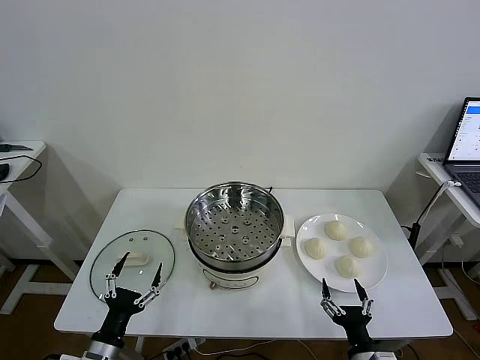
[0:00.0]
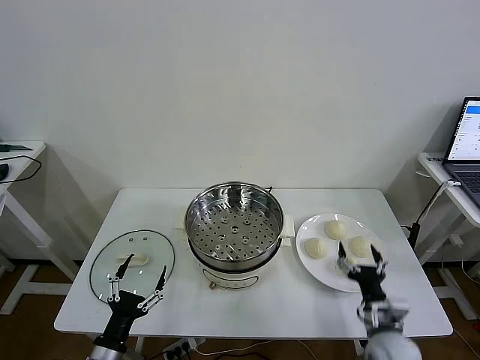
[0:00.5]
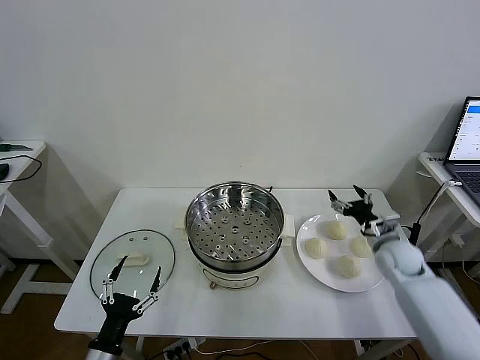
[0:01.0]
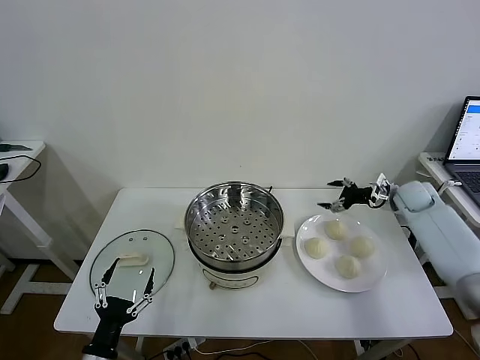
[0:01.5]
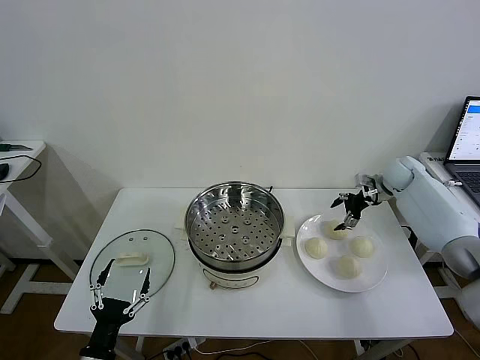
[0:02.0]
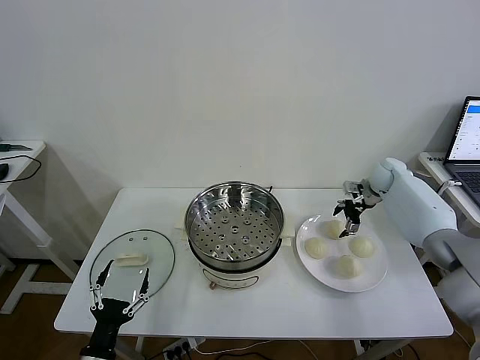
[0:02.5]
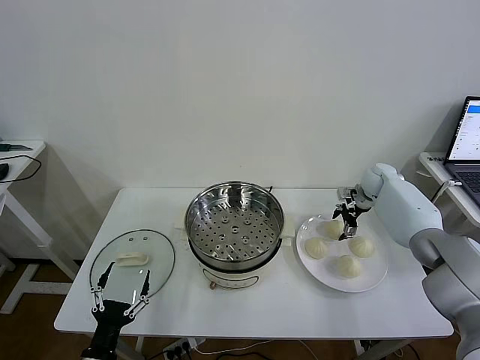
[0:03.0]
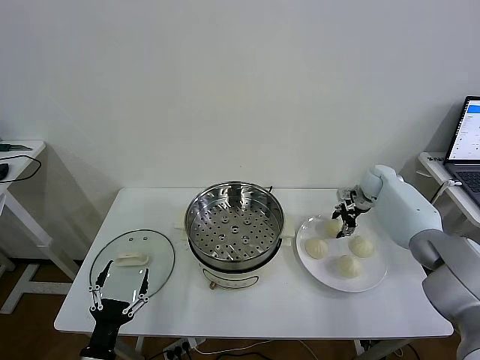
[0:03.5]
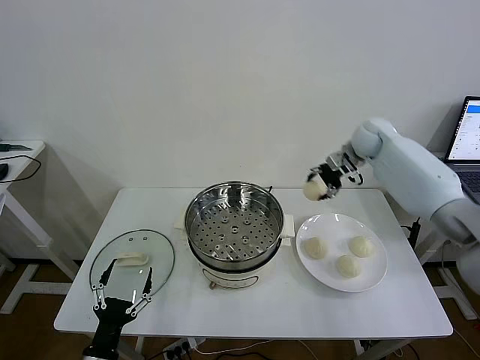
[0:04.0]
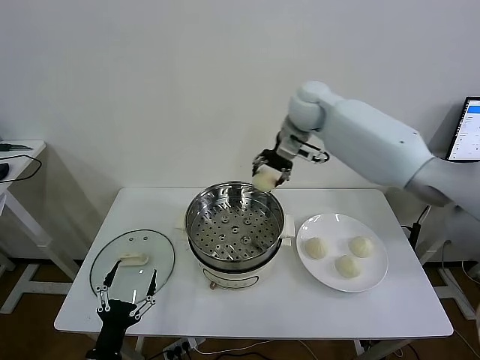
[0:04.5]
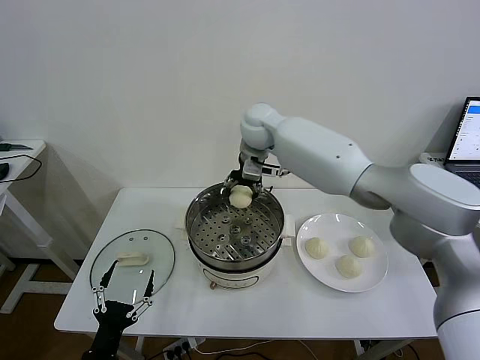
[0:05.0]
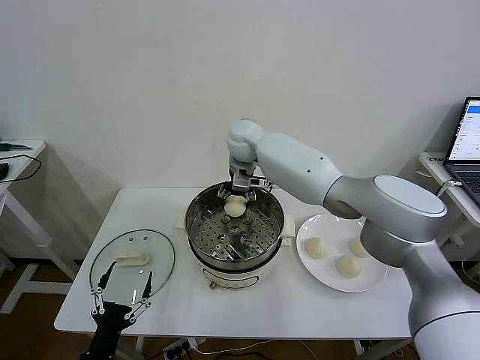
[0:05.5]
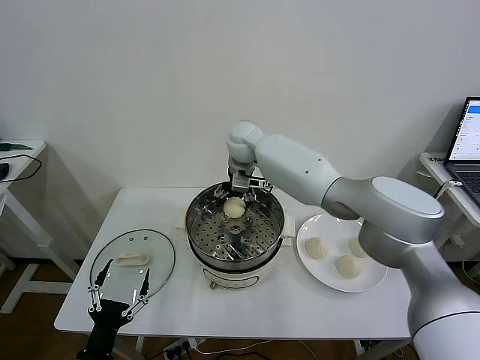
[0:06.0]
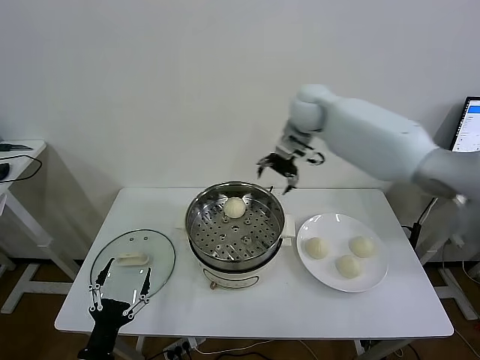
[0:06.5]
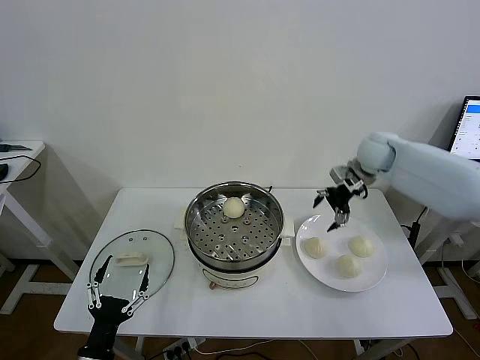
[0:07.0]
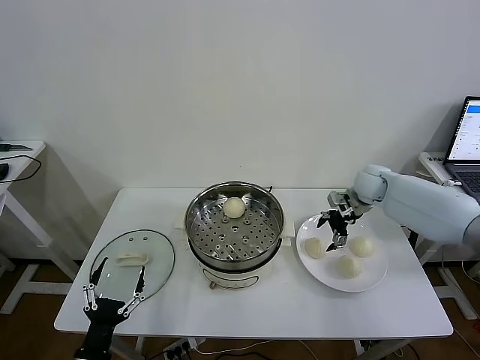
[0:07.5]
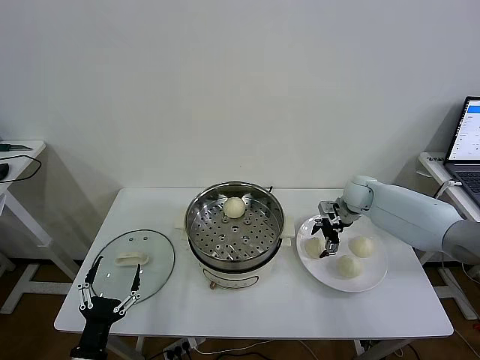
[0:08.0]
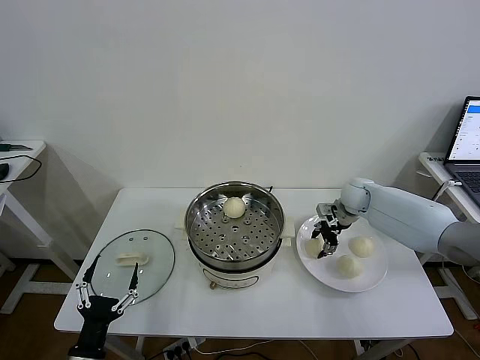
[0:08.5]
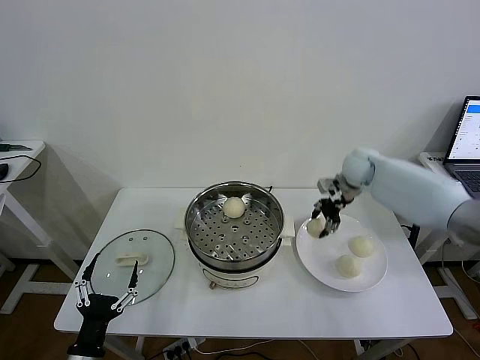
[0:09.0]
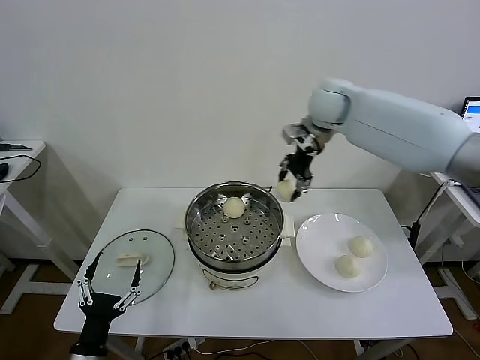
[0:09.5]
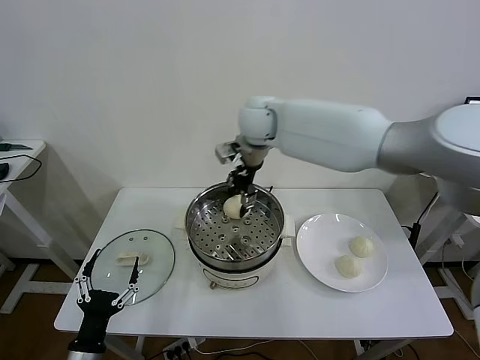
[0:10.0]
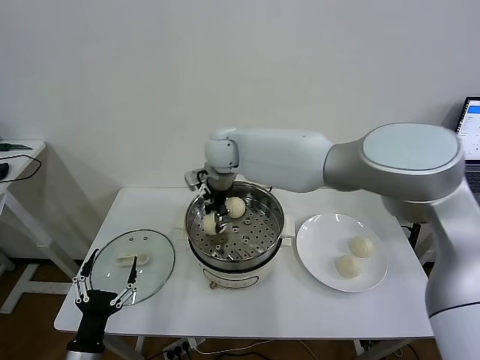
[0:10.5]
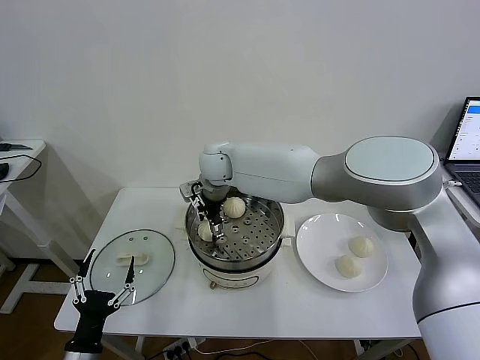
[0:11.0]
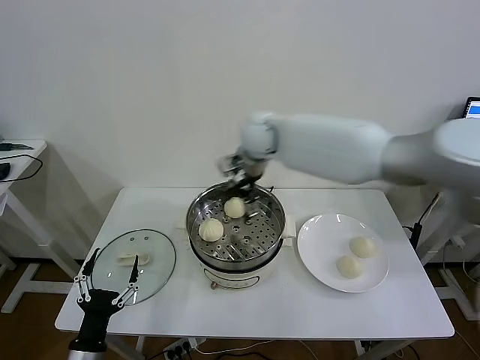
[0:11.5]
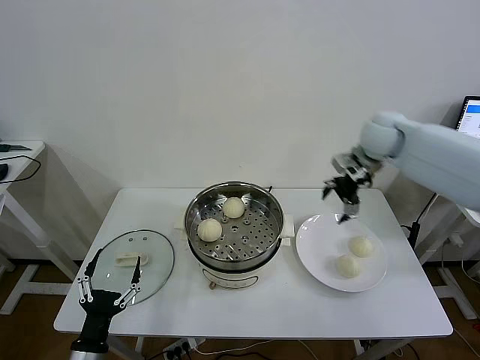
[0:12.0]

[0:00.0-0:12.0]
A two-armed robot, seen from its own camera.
Task of the whole recording: take steamed baozi put them in steamer then cover it.
Step, 0:00.0 to 0:03.0: Grasp the baozi in the plate with right gripper.
Step, 0:03.5 to 0:05.5: Place the baozi on the steamer with right gripper.
Step, 0:06.0 to 0:08.0: Grasp the baozi in the plate with right gripper.
Step, 0:08.5 to 0:10.5: Place the baozi on the steamer with right gripper.
0:02.0 to 0:04.0: The right gripper goes roughly 20 cm to the left and upward, and closes its fingers.
0:04.0 to 0:06.0: The right gripper travels to the left by some 25 cm, and opens up.
0:06.0 to 0:08.0: The right gripper moves to the right and downward, some 35 cm.
0:08.0 to 0:10.0: The right gripper is displaced to the left and upward by roughly 35 cm, and closes.
0:10.0 to 0:12.0: The right gripper is displaced to the right by about 30 cm, and opens its fingers.

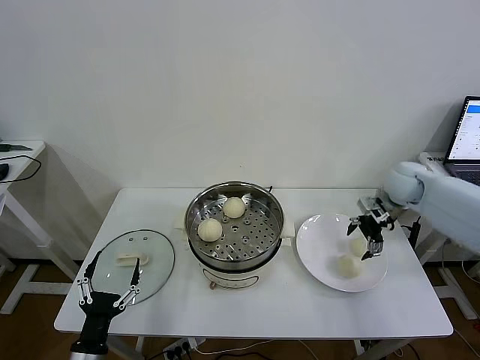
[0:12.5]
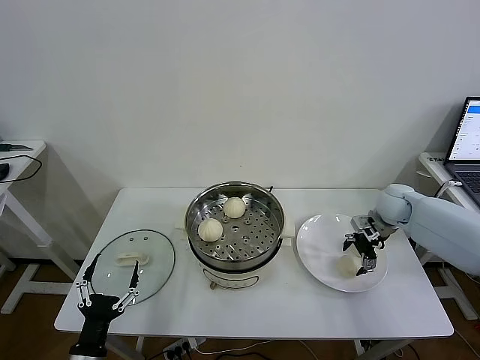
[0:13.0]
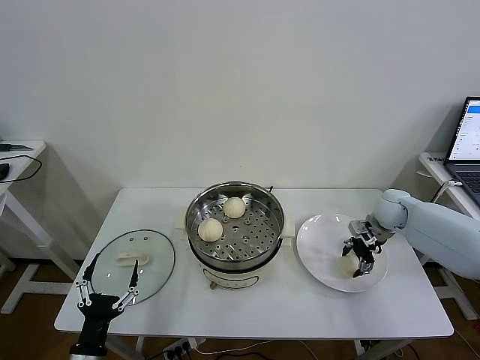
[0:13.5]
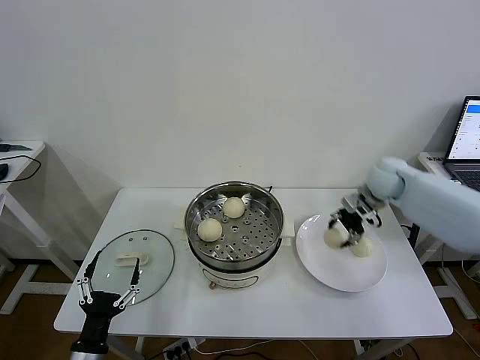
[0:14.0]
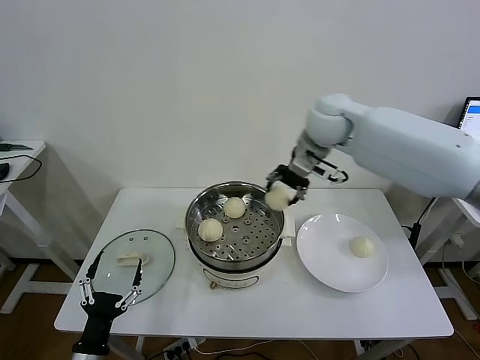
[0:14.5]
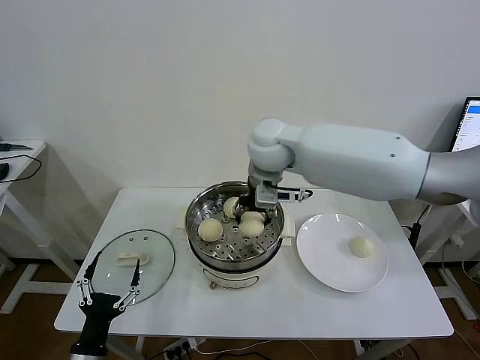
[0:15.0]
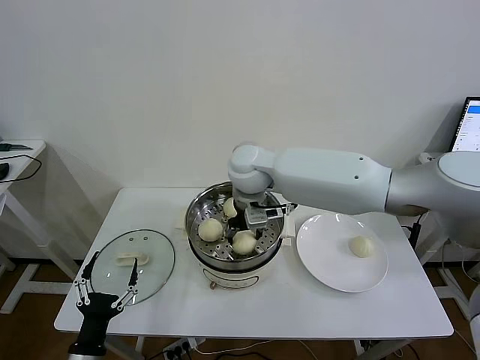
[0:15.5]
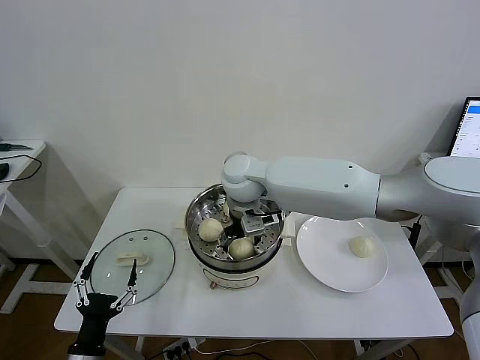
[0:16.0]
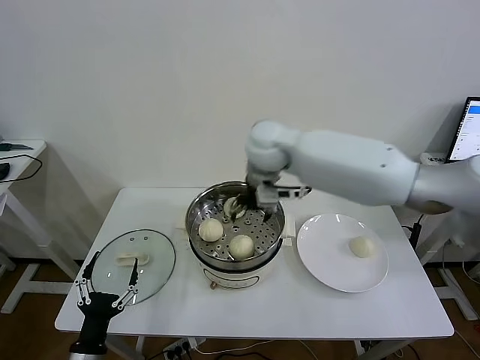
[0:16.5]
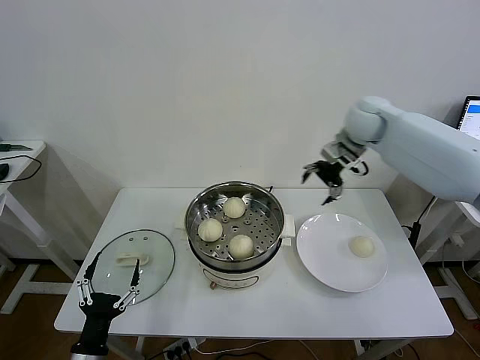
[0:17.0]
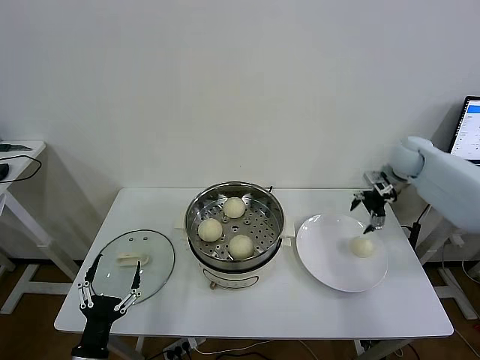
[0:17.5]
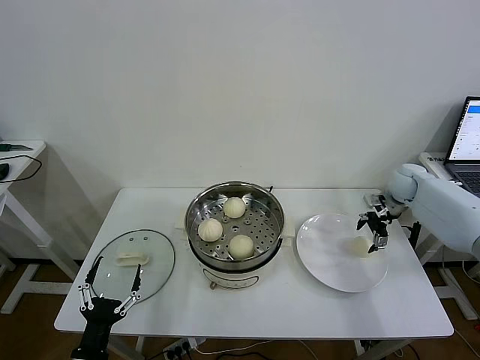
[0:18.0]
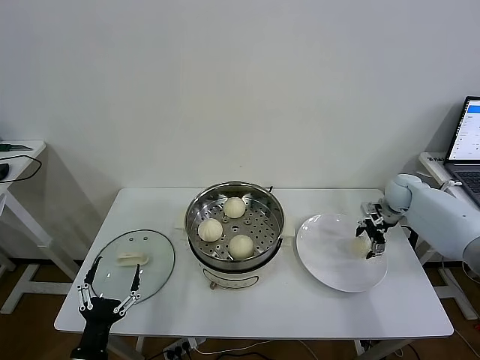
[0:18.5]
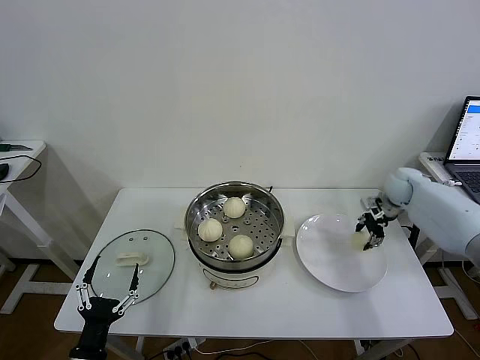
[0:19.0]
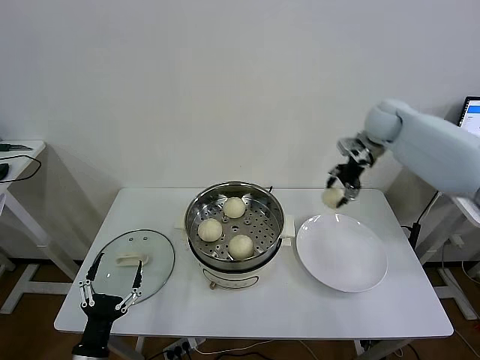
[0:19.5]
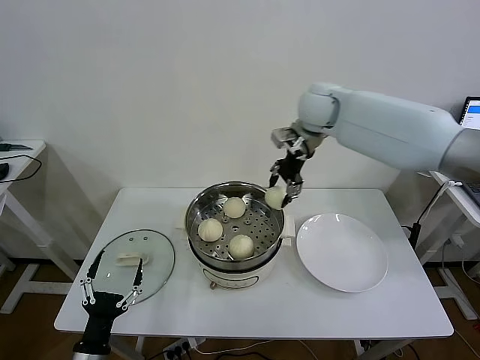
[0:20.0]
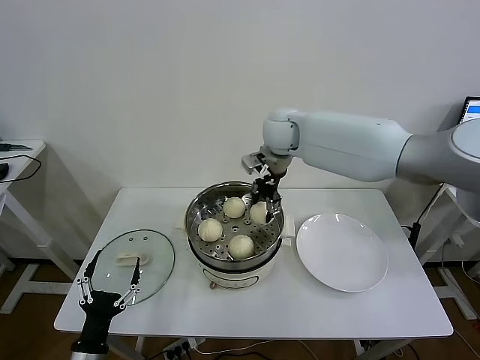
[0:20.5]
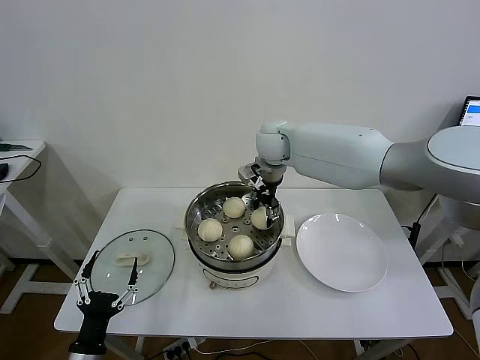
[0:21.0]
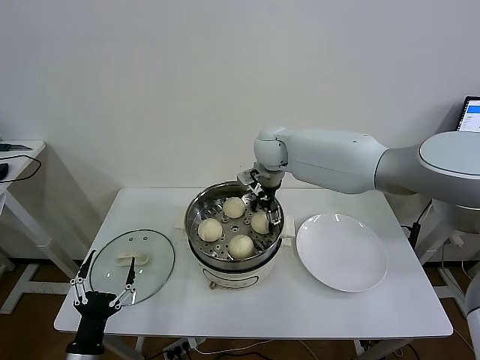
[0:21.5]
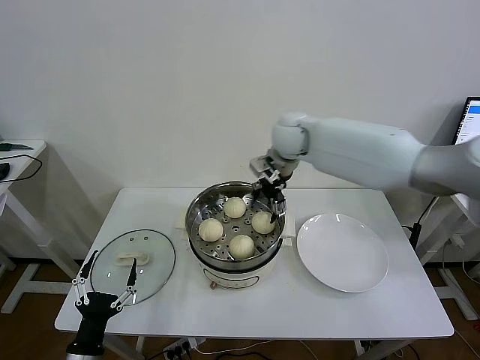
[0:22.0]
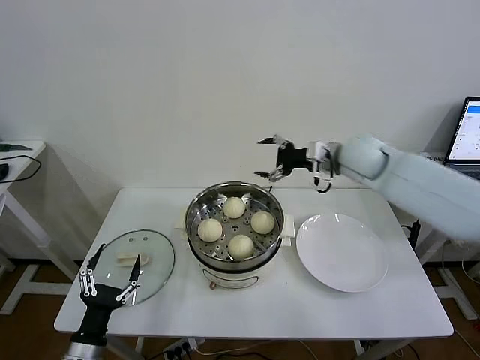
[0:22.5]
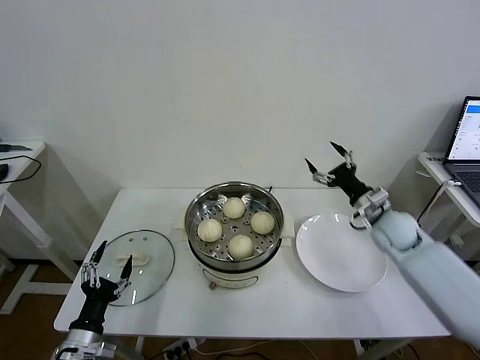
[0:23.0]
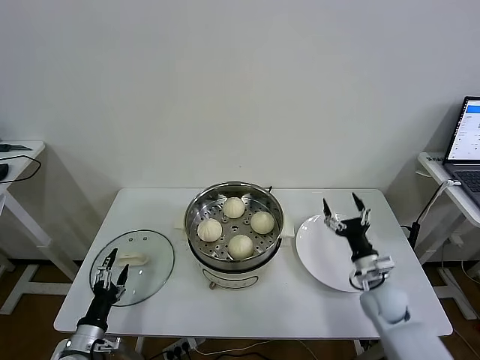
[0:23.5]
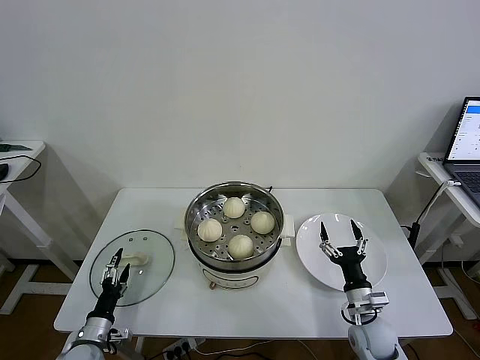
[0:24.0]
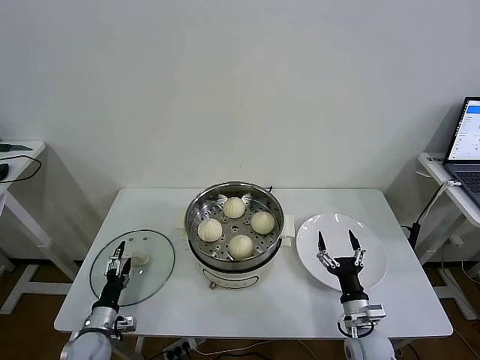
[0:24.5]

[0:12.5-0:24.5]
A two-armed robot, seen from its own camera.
Task of the whole recording: take steamed baozi put them in steamer then cover it.
Step, 0:14.0 to 0:16.0: Place the baozi on the steamer with right gripper.
Step, 0:16.5 to 0:18.5: Grasp the baozi in the plate with right gripper.
Step, 0:19.0 to 0:21.5: Place the baozi on the steamer with right gripper.
0:12.5 to 0:14.5: The right gripper shifts about 30 cm to the left and upward, and closes.
0:14.5 to 0:16.5: The right gripper shifts about 10 cm to the left, and opens.
0:16.5 to 0:18.5: The right gripper shifts approximately 40 cm to the right and downward.
0:18.5 to 0:20.5: The right gripper travels to the left and upward by some 40 cm, and closes its fingers.
0:20.5 to 0:22.5: The right gripper moves to the right, some 15 cm, and opens up.
0:22.5 to 0:24.5: The left gripper heads downward and forward, covering some 15 cm, while the right gripper is displaced downward and backward by some 40 cm.

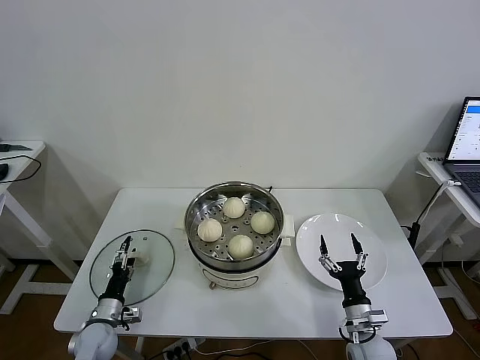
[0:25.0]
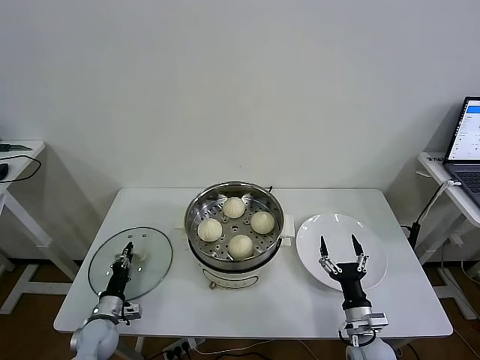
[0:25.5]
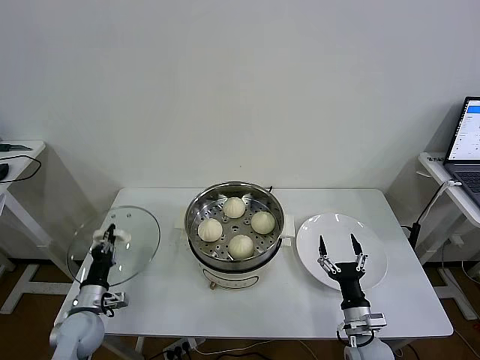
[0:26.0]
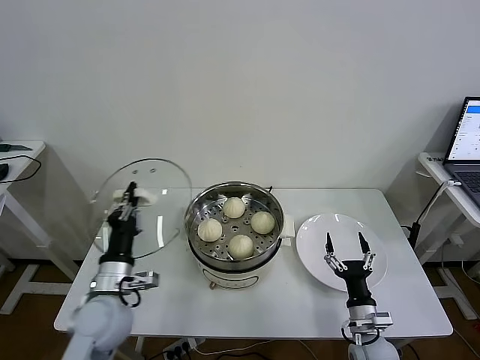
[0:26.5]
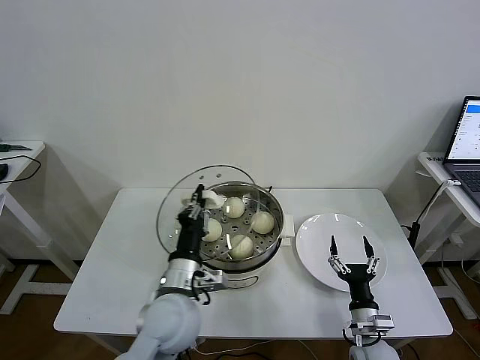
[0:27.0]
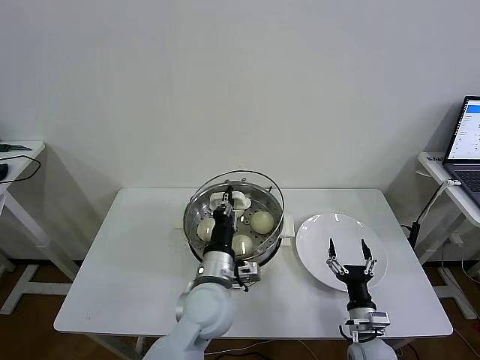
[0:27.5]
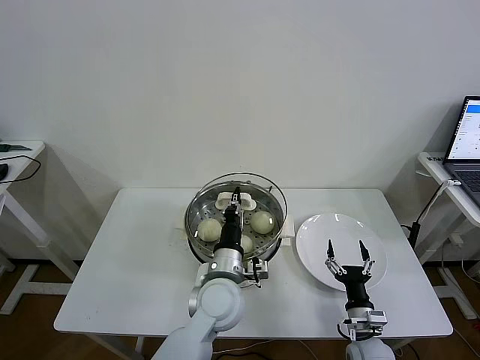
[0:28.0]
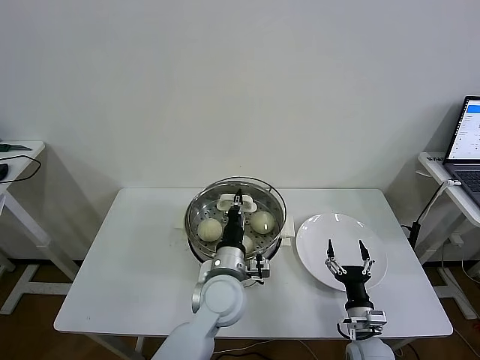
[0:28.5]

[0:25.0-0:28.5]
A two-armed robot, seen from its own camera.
Task of the whole recording: take steamed baozi put them in steamer then cover it.
0:25.0 to 0:27.0: The left gripper is displaced to the right and upward by some 30 cm, and closes up.
0:27.0 to 0:28.5: The left gripper is displaced to the right and forward by some 10 cm.
